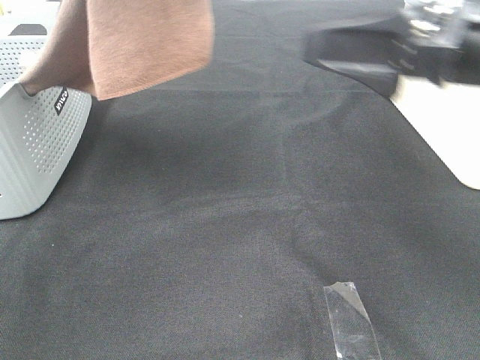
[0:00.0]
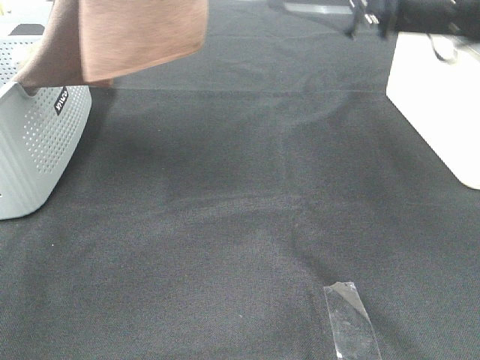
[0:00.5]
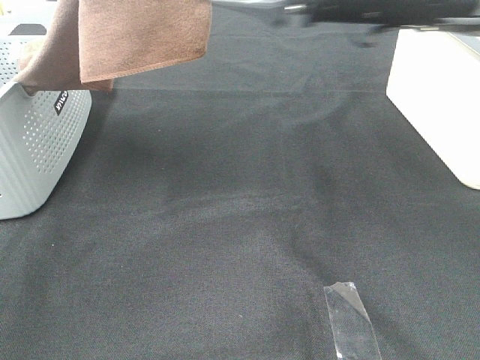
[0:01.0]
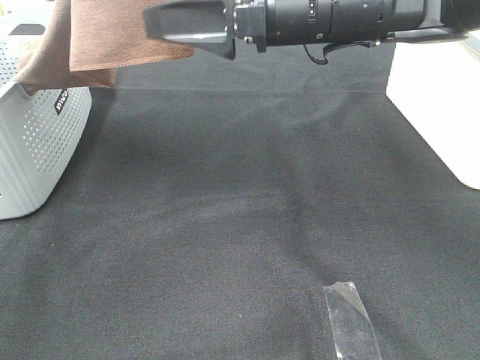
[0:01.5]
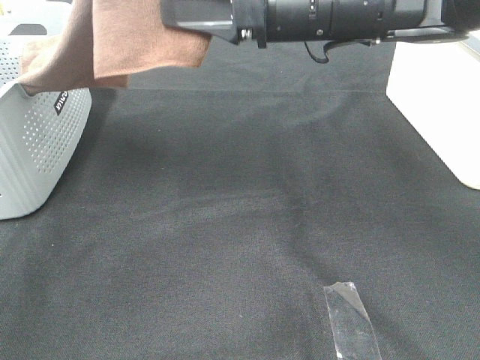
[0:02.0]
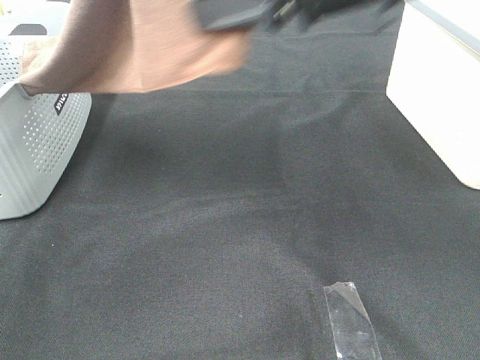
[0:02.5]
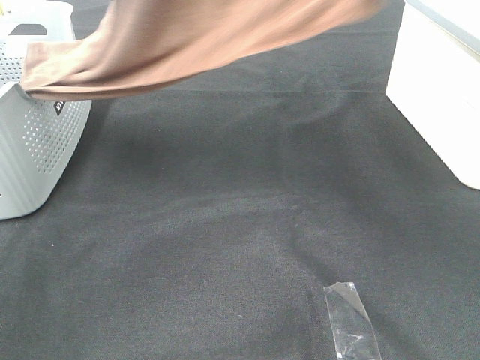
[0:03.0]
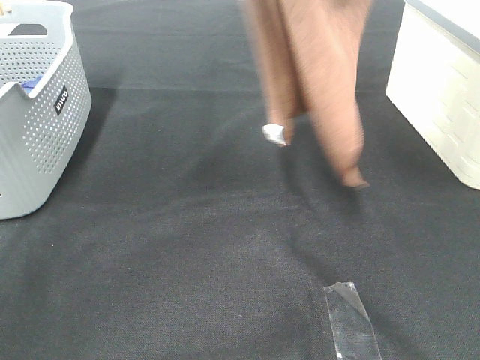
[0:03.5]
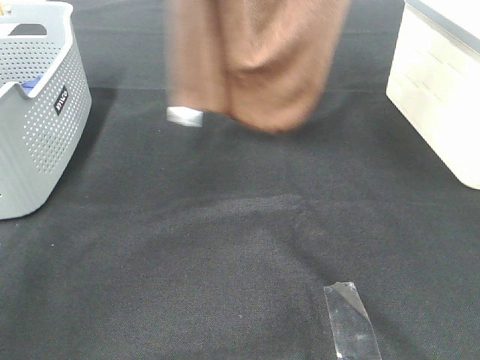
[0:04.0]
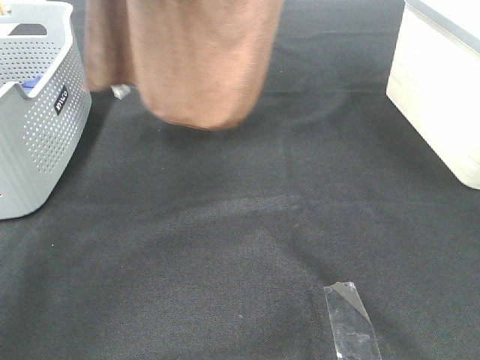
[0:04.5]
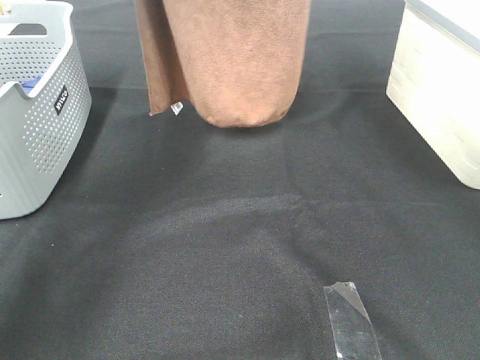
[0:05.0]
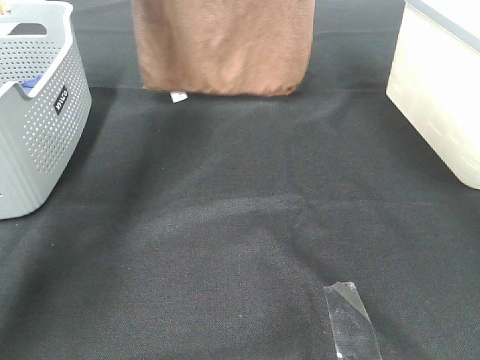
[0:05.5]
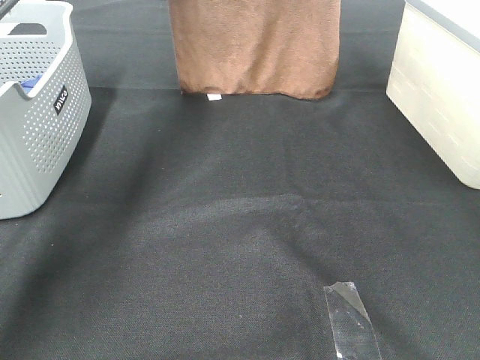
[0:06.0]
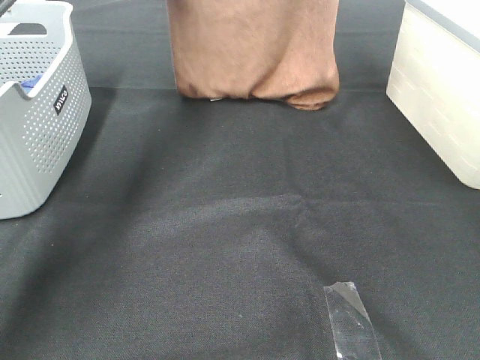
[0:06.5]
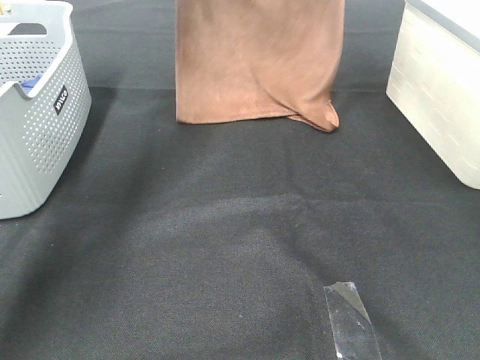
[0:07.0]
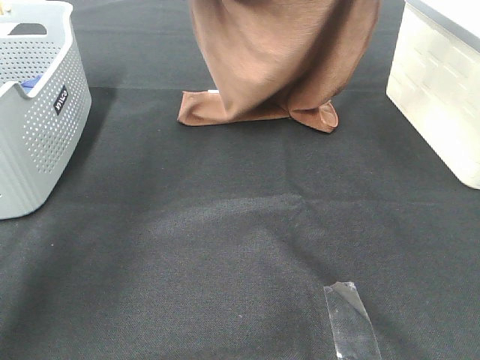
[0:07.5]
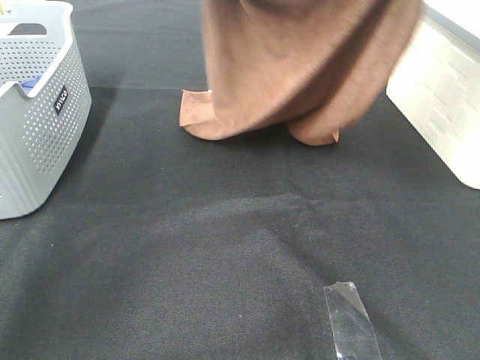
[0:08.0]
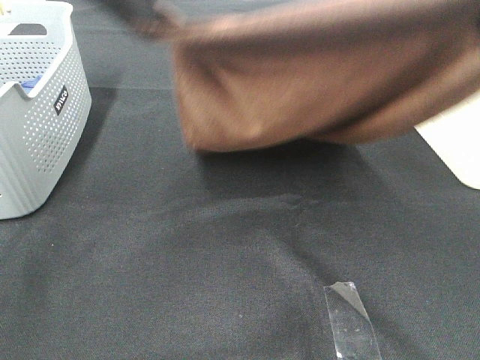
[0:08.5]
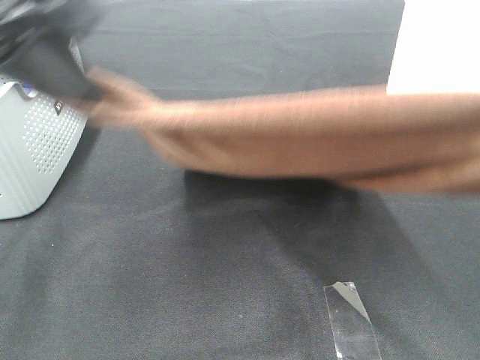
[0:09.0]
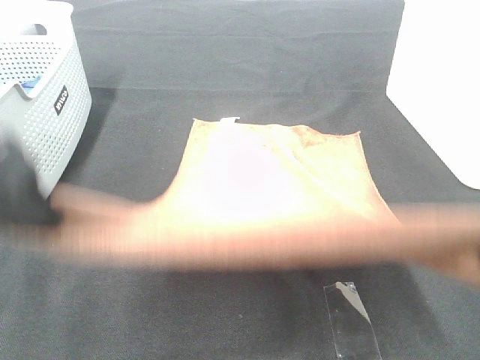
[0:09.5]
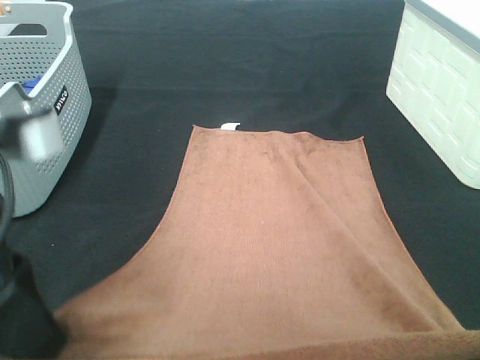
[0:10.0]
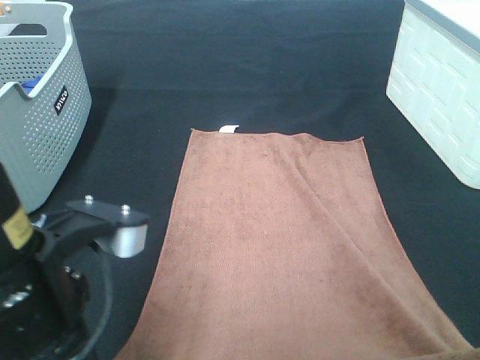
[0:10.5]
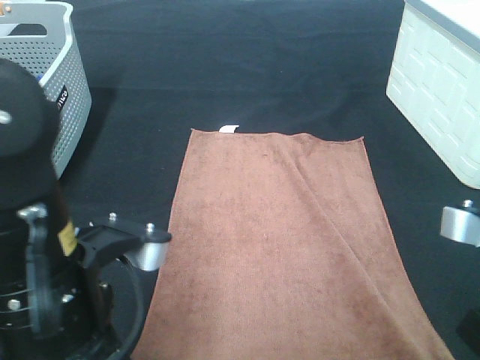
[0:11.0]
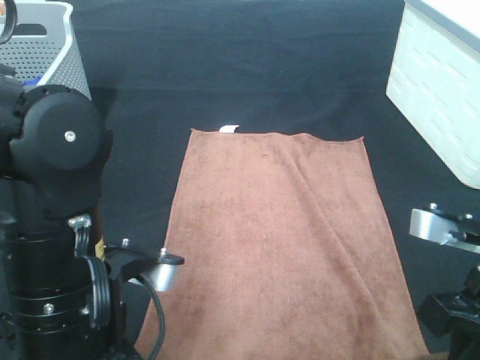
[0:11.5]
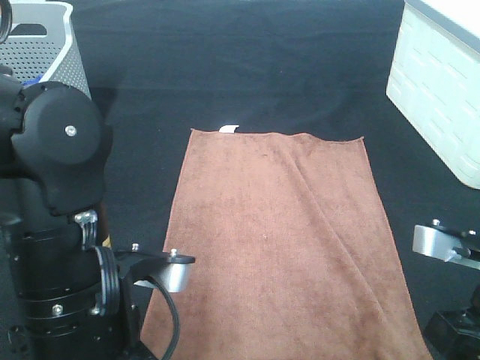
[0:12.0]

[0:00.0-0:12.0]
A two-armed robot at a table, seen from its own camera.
Task of the whole recording: Remove the towel and place it.
Step, 0:00.0 to 0:02.0: Right hand: grab a corner of the brown towel and straighten it.
Step, 0:02.5 to 0:08.0: Left hand: spread the brown towel flat on the table.
Step, 0:02.5 to 0:08.0: Right hand: spread the brown towel flat on the table.
0:00.0 to 0:02.0: The right gripper travels to the left and forward by some 15 cm, and closes up.
0:02.0 to 0:04.0: The right gripper heads upward, covering approximately 20 cm; the left gripper shifts approximately 10 cm forward.
0:04.0 to 0:06.0: The right gripper heads forward, covering approximately 20 cm. Meanwhile the left gripper heads forward and downward, covering some 20 cm.
0:06.0 to 0:08.0: The left gripper goes roughly 15 cm backward and to the right; the right gripper heads backward, covering about 15 cm.
0:08.0 to 0:10.0: Both grippers move backward and downward, roughly 30 cm.
0:10.0 to 0:12.0: The left gripper goes roughly 10 cm downward and to the right, and opens. Meanwhile the right gripper heads downward and forward, covering approximately 10 cm, and opens.

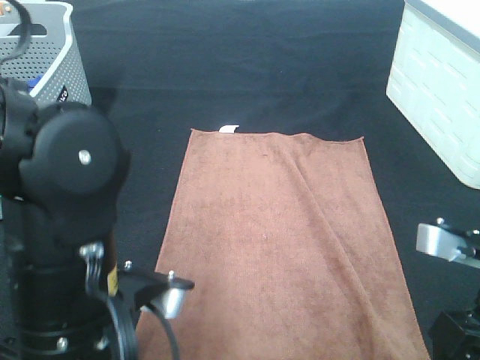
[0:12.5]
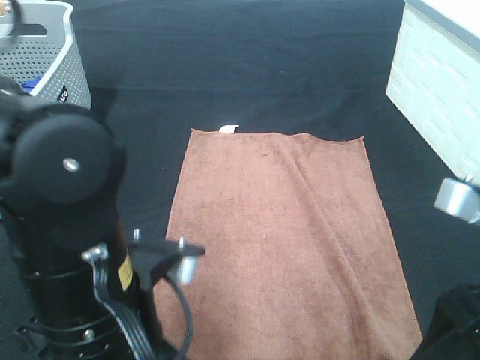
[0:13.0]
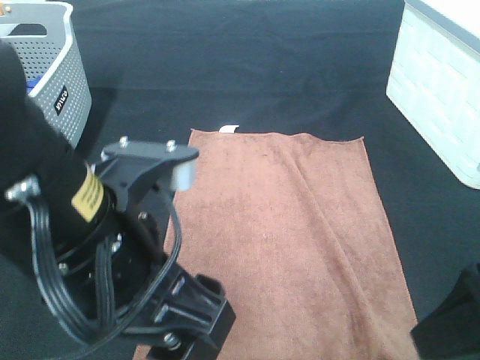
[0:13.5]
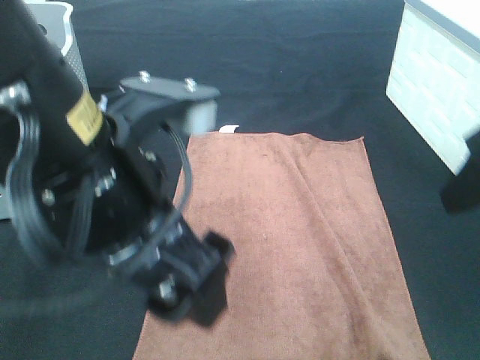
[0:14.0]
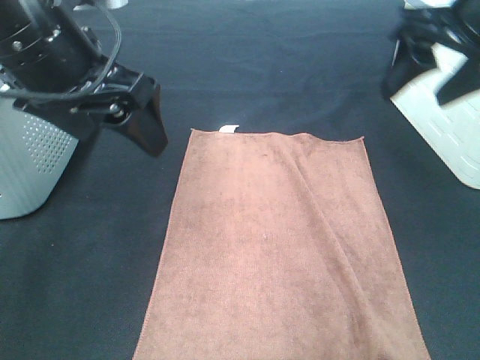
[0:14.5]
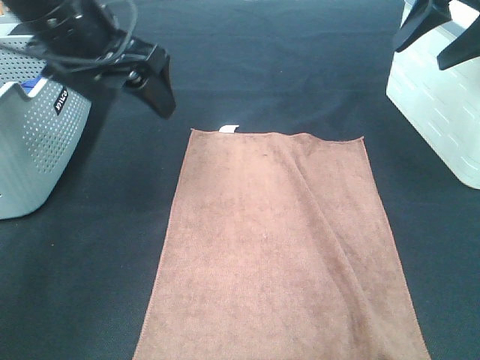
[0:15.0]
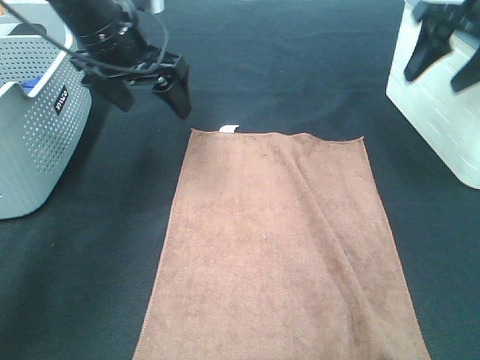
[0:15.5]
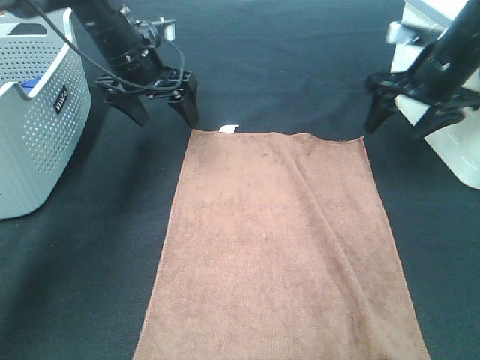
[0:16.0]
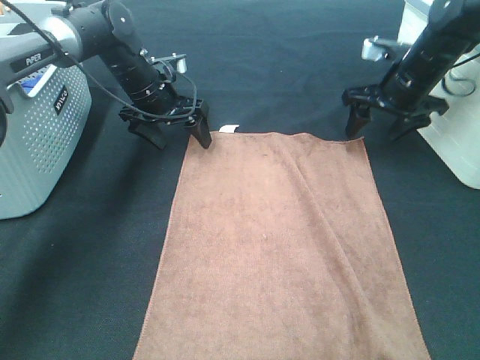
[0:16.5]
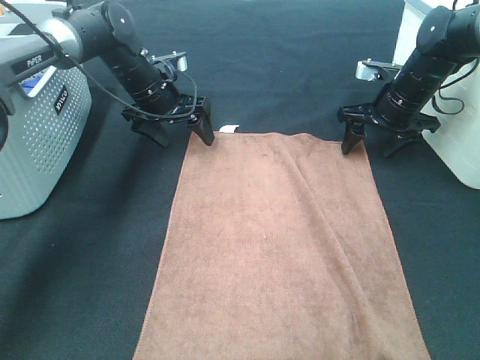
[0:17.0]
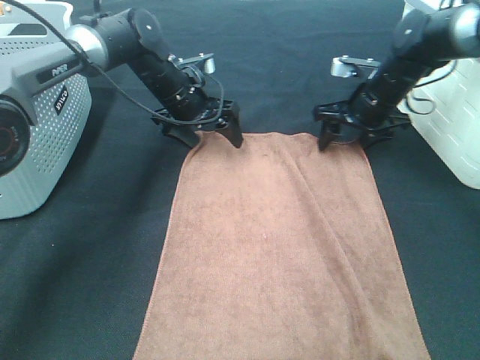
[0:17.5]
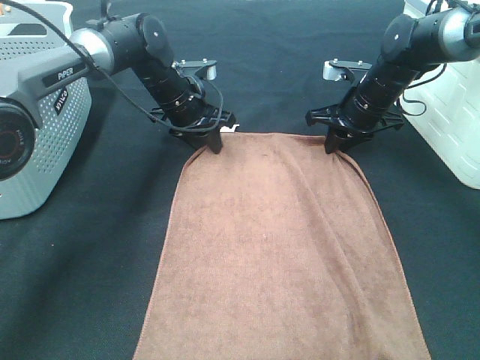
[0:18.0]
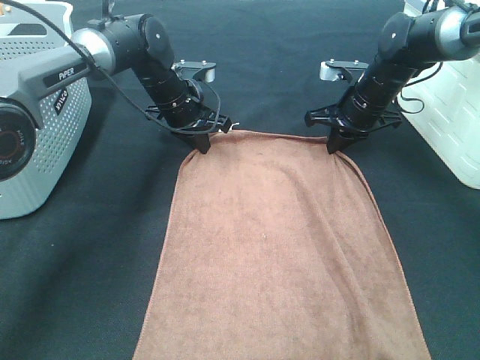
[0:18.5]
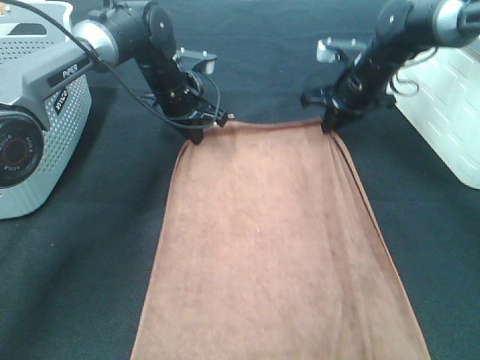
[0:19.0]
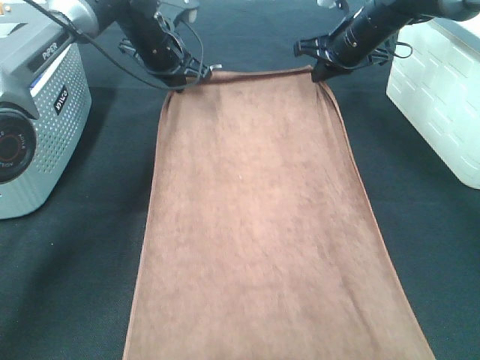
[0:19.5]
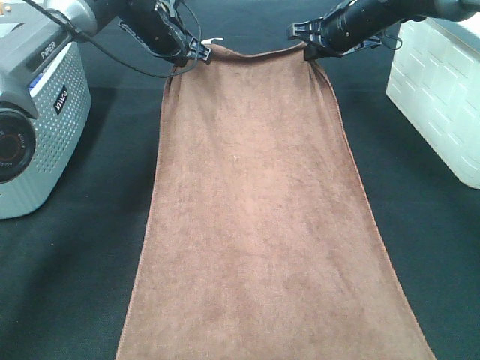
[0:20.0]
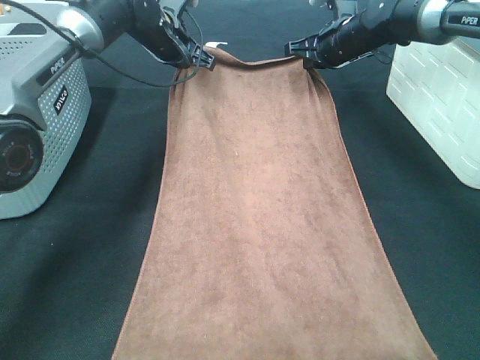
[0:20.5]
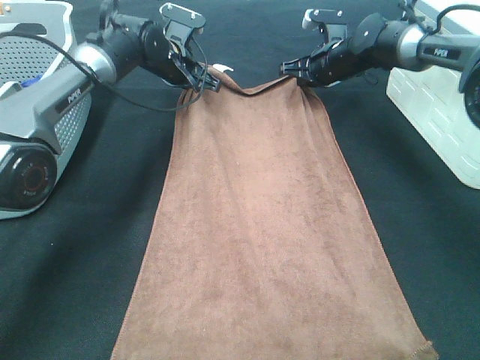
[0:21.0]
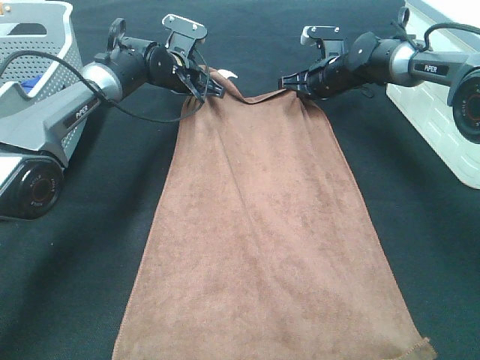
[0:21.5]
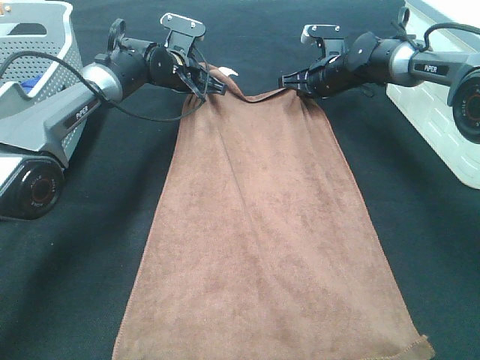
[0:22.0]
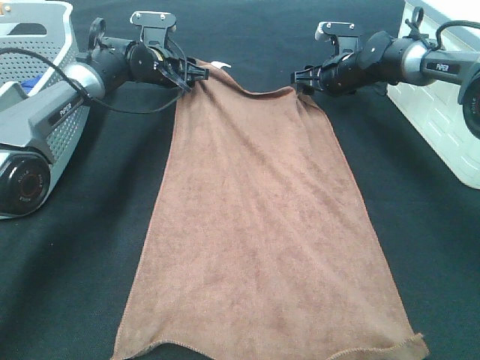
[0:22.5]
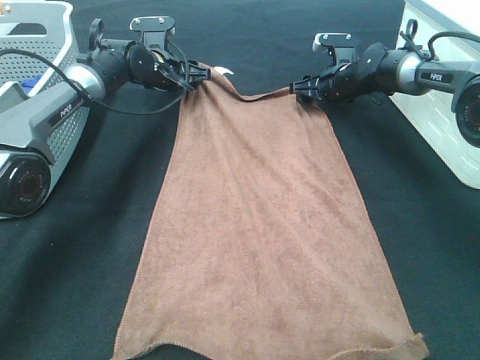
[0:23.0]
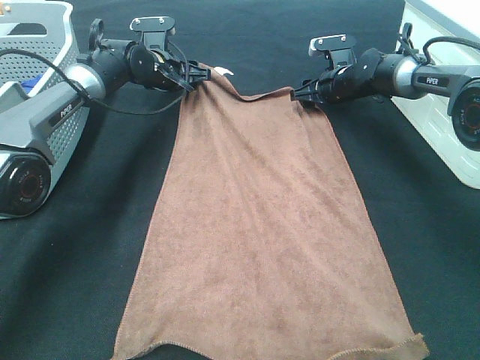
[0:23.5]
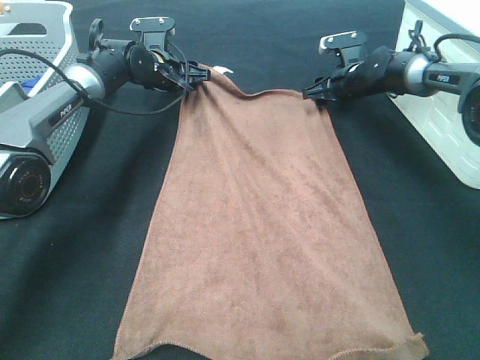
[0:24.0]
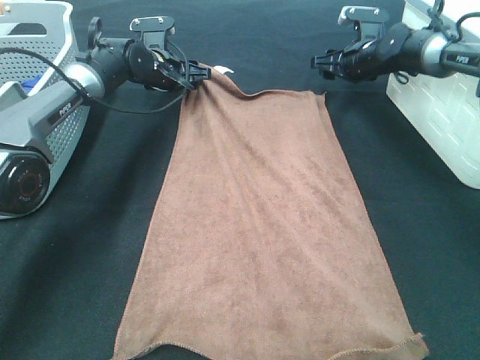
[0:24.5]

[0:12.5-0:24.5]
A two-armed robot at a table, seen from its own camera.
Task of the whole recording: Remove the towel and place it.
Step, 0:12.5 to 0:17.0: Right hand:adjust the brown towel.
Step, 0:12.5 to 0:18.0: Left hand:adjust the brown towel.
0:12.5 to 0:14.5: The grippers both shift forward and upward by approximately 20 cm.
0:14.5 to 0:16.5: The right gripper moves downward and forward, roughly 25 cm; the left gripper heads forward and downward, covering some 30 cm.
0:16.5 to 0:18.5: The right gripper is displaced to the left by roughly 5 cm, and closes. The left gripper closes.
0:18.5 to 0:20.5: The left gripper shifts approximately 10 cm upward and forward; the right gripper moves forward and upward, some 10 cm.
0:20.5 to 0:22.5: The grippers both shift downward by approximately 5 cm. The right gripper opens up; the left gripper opens up.
0:22.5 to 0:24.5: The grippers move only a little.

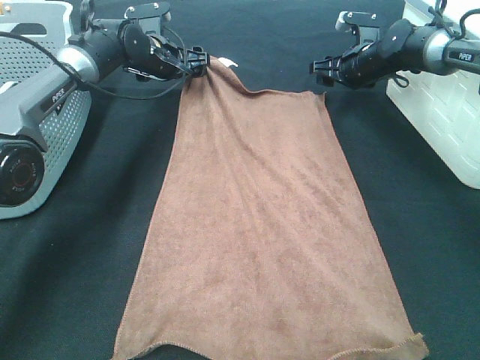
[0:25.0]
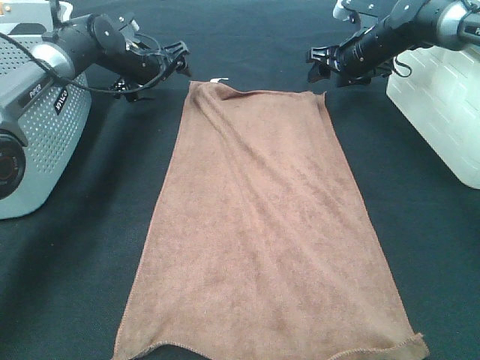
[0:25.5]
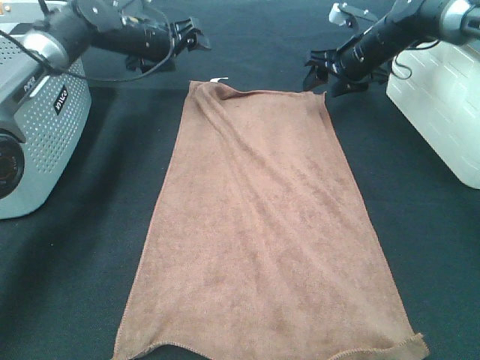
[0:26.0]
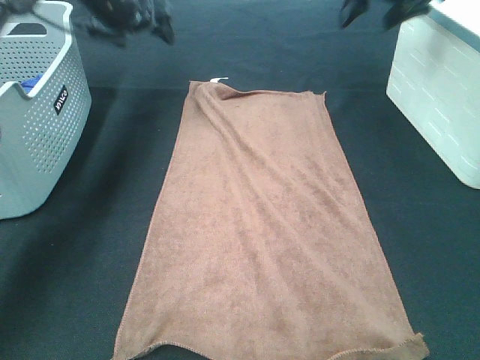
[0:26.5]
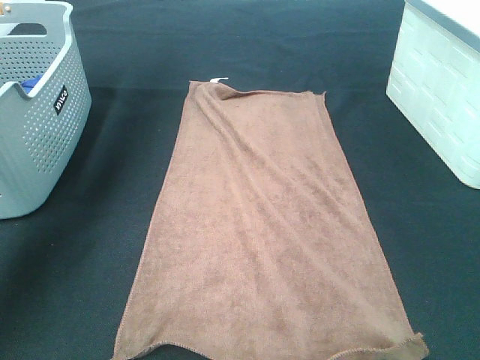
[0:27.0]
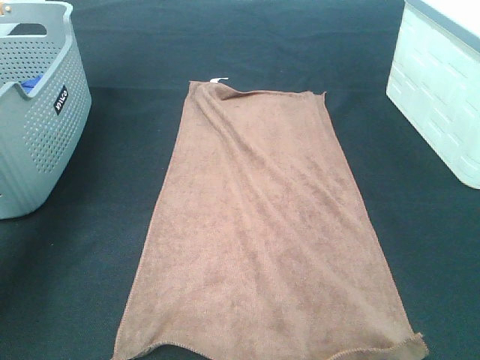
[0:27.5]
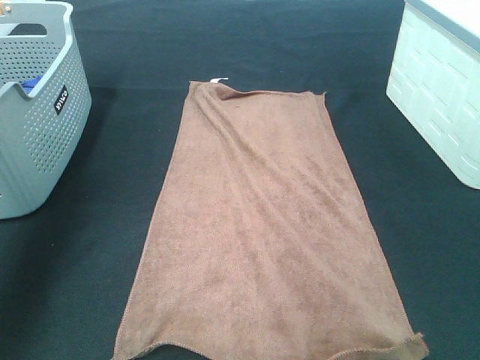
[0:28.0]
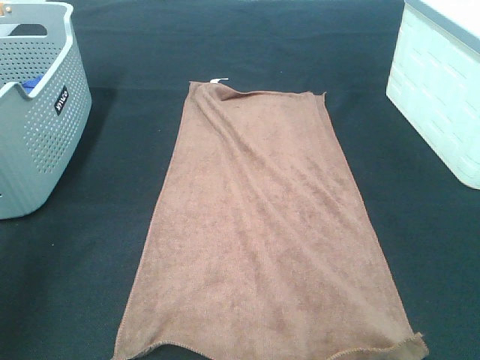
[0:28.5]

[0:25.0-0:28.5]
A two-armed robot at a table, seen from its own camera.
Task of the whole recording: Remove the towel and place it.
0:25.0 to 0:27.0: The right gripper heads upward and backward, covering approximately 30 cm; the left gripper shifts some 25 cm upward and to the left.
0:27.0 to 0:28.5: The left gripper goes approximately 40 cm backward.
